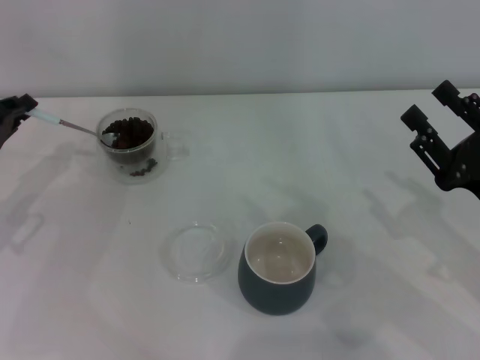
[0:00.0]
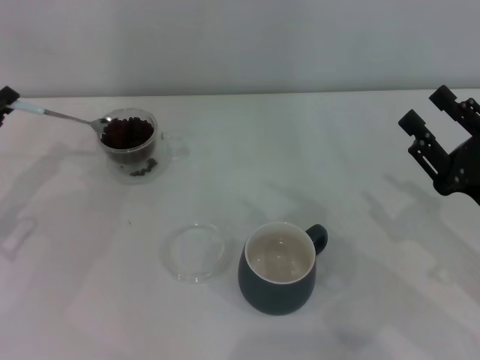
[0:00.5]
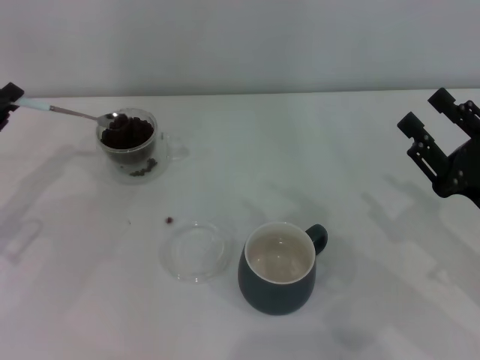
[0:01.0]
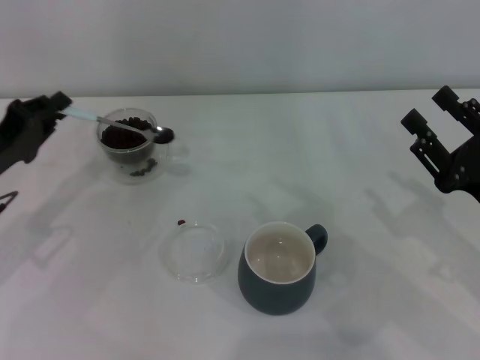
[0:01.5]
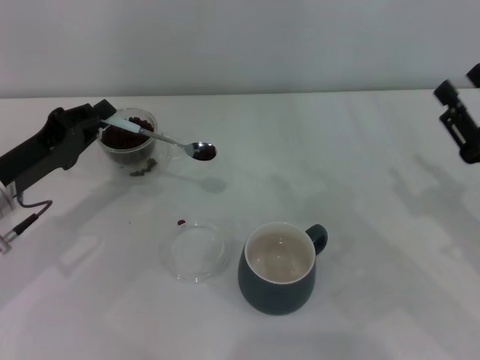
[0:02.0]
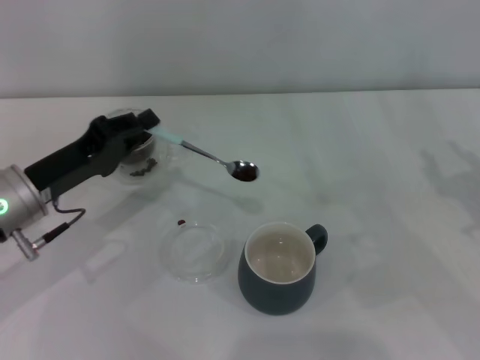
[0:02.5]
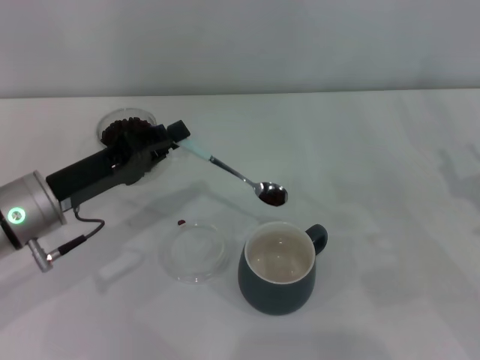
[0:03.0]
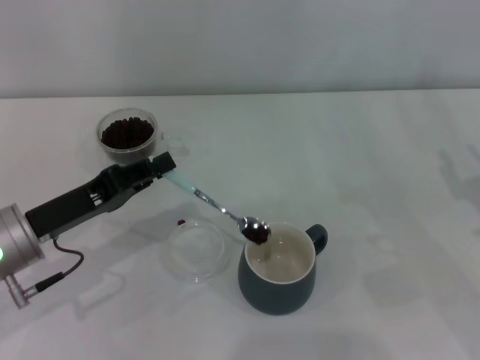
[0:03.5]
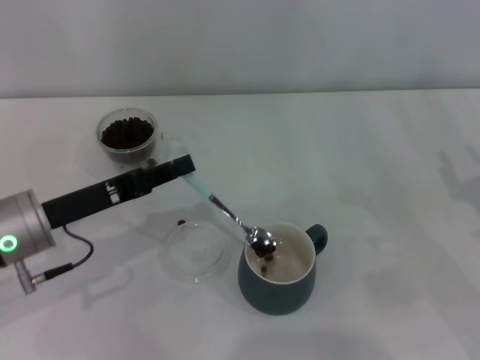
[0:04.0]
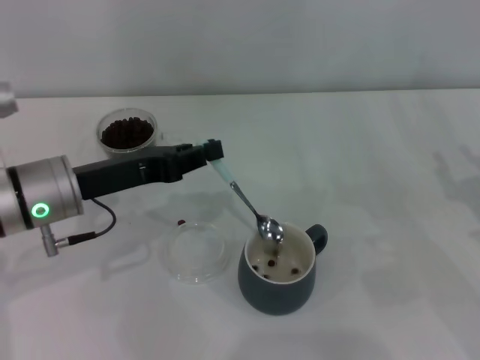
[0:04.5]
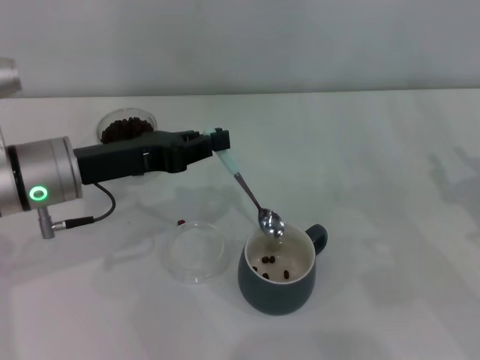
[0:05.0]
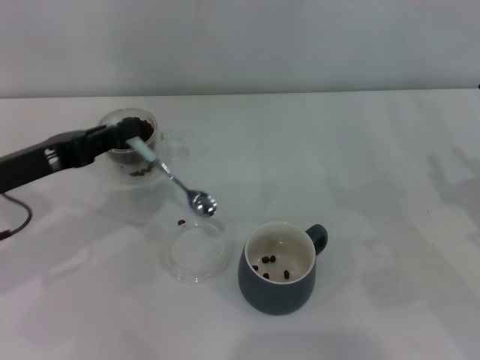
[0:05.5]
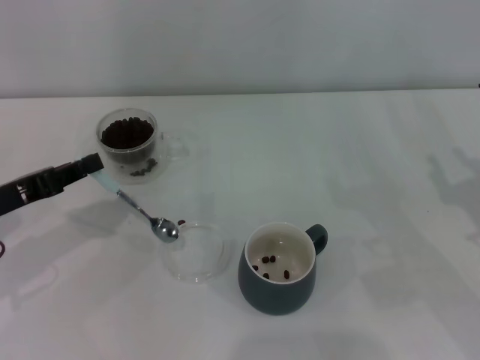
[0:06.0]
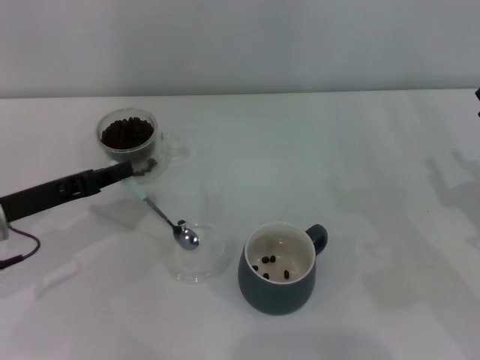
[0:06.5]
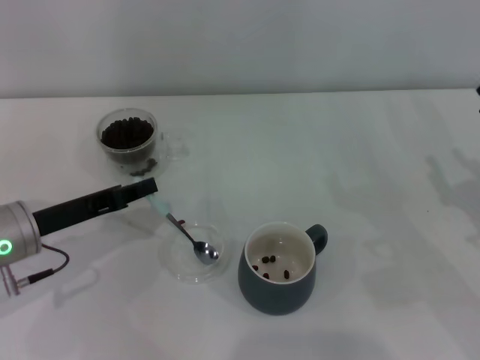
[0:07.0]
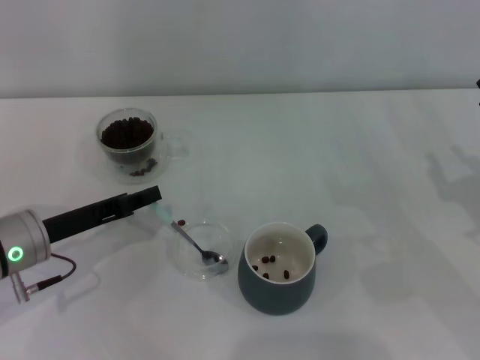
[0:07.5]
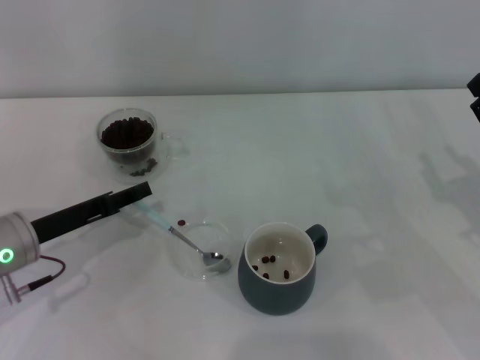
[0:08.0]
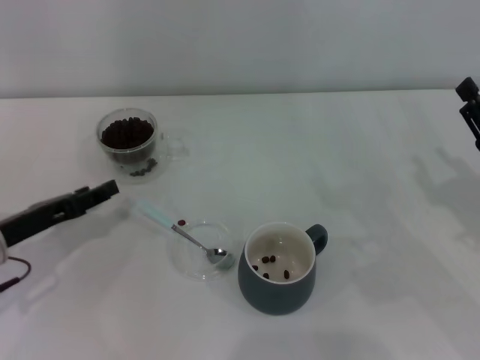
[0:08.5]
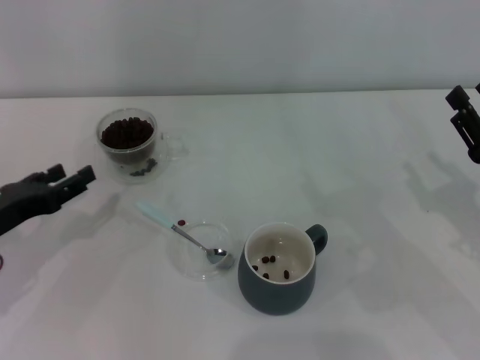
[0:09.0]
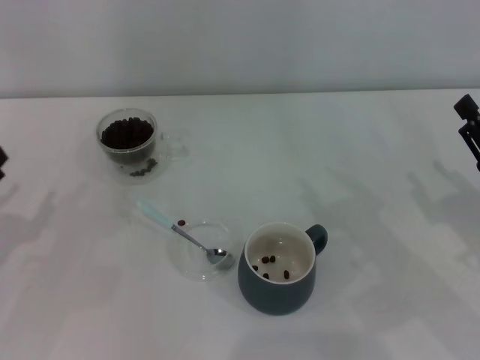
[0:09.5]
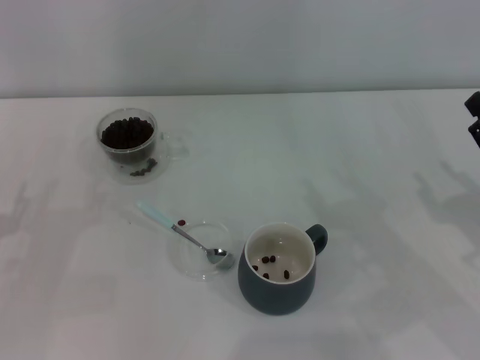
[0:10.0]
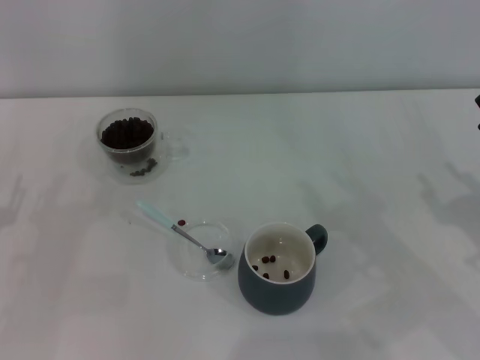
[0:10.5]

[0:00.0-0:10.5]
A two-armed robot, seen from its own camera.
Task of the whole recording: Use a blue spoon to take out the coffee beans from the glass and pour them into the gray cup.
Step, 0:00.0 to 0:05.0: Scoop a spoonful of beans into the cup with the right gripper.
0:00.0 to 0:02.0: The left gripper heads to the right, covering roughly 5 cm.
0:04.0 to 0:06.5: The left gripper is displaced to the left by approximately 5 cm.
0:06.5 to 0:08.5: The left gripper opens up.
0:08.5 to 0:10.5: The left gripper changes place by approximately 5 cm.
